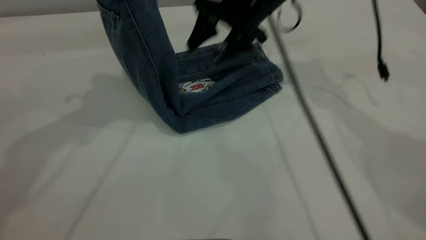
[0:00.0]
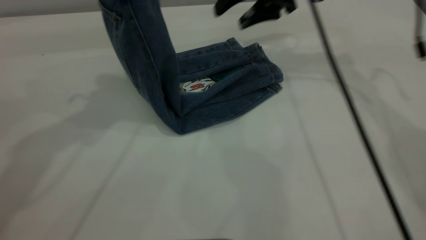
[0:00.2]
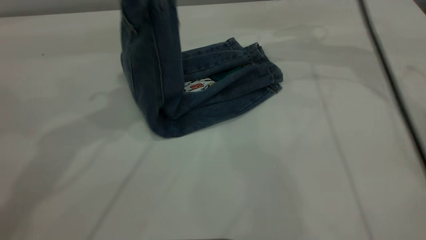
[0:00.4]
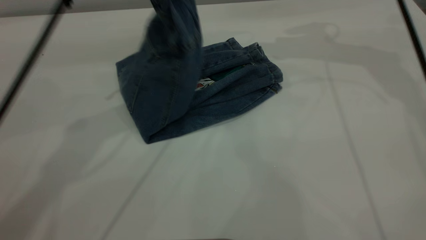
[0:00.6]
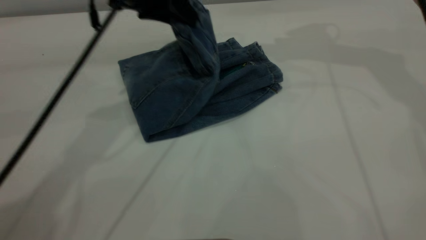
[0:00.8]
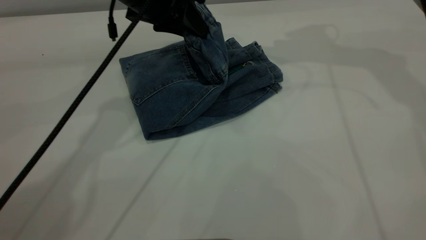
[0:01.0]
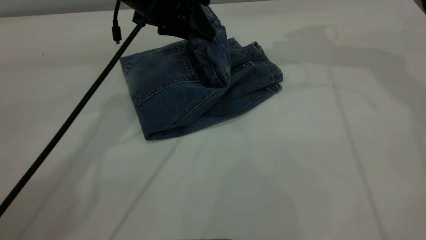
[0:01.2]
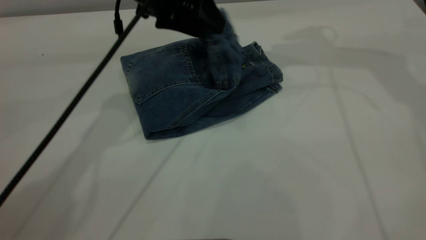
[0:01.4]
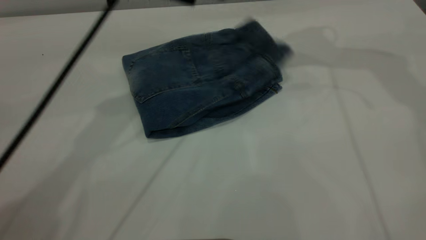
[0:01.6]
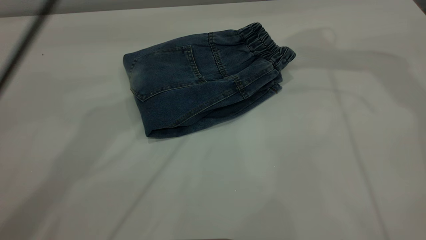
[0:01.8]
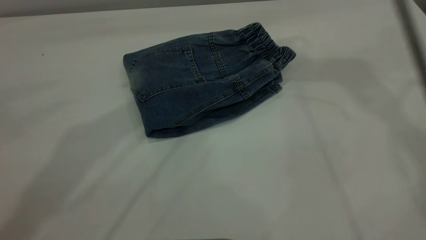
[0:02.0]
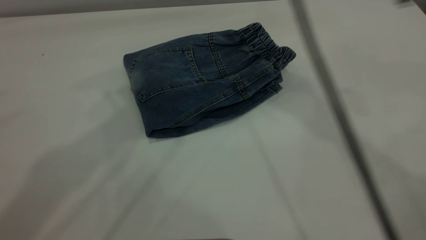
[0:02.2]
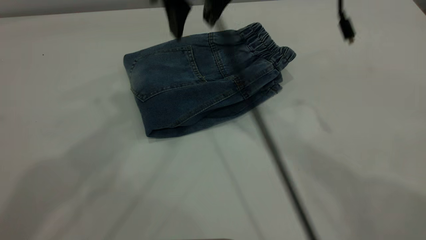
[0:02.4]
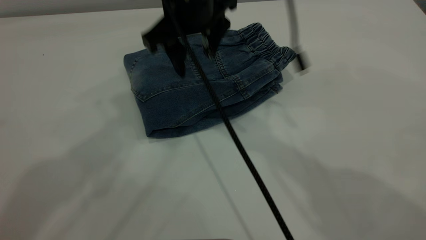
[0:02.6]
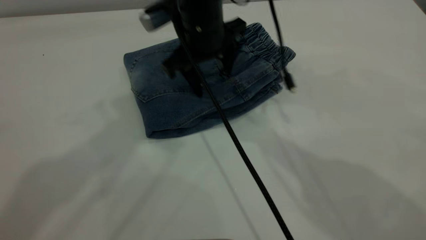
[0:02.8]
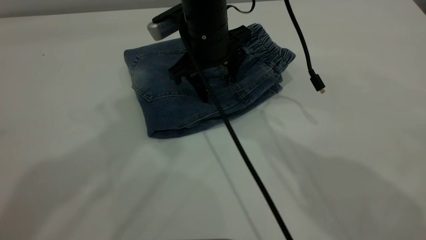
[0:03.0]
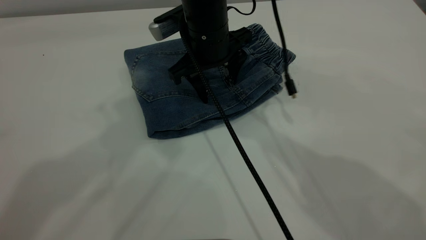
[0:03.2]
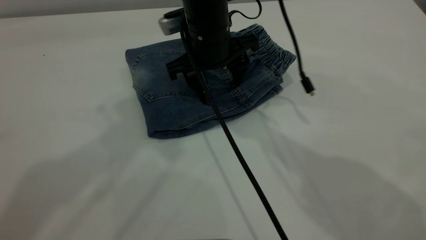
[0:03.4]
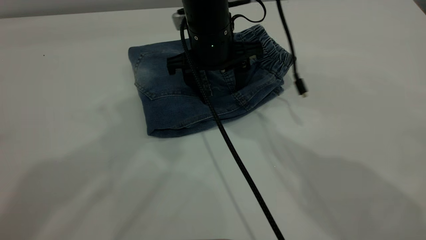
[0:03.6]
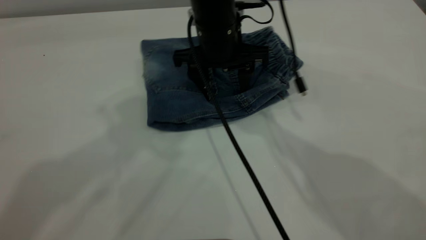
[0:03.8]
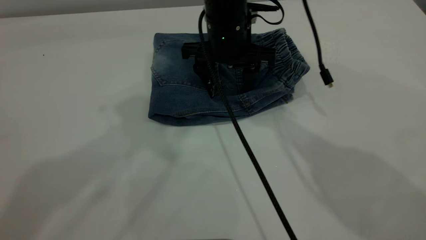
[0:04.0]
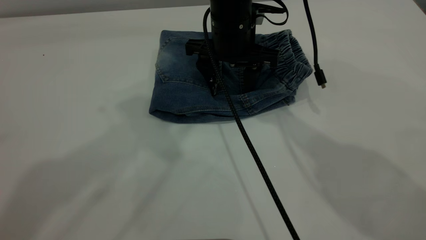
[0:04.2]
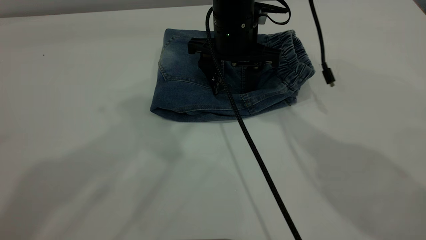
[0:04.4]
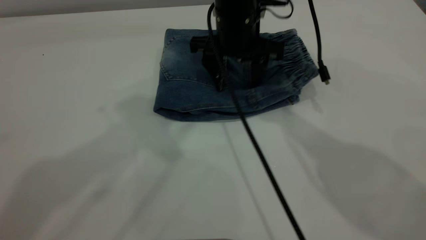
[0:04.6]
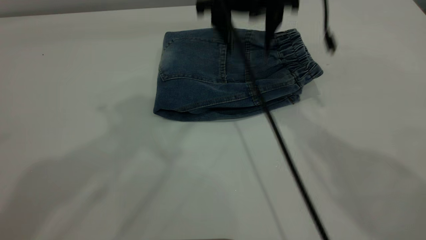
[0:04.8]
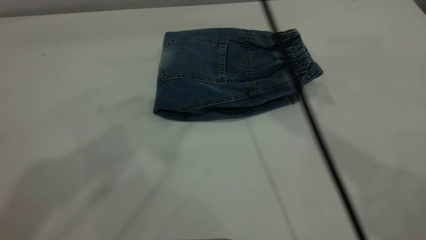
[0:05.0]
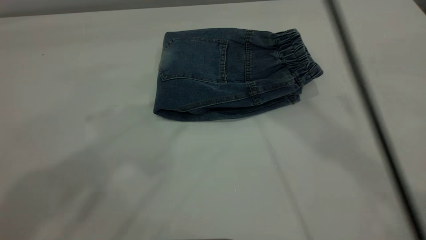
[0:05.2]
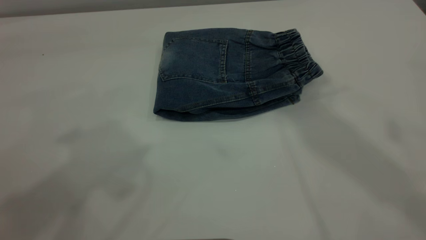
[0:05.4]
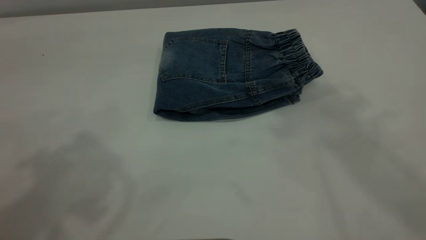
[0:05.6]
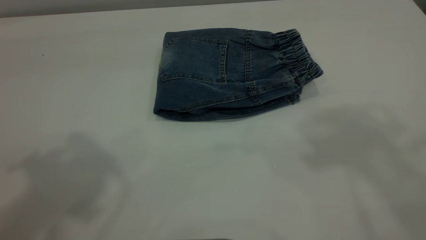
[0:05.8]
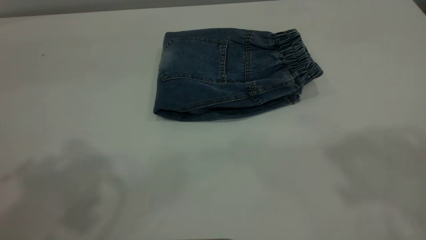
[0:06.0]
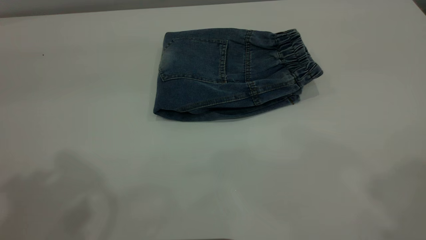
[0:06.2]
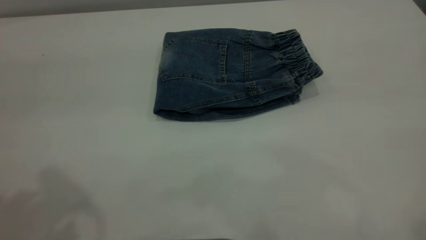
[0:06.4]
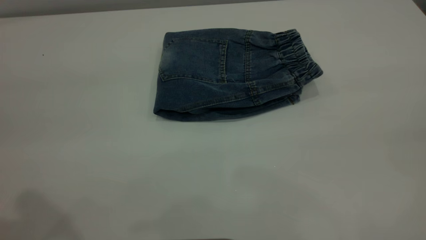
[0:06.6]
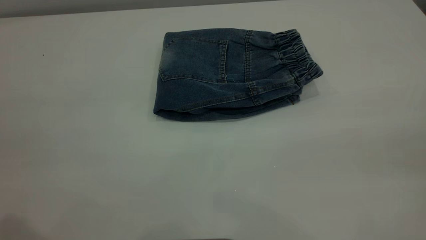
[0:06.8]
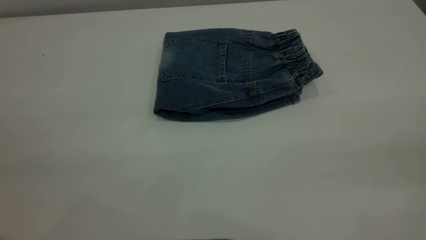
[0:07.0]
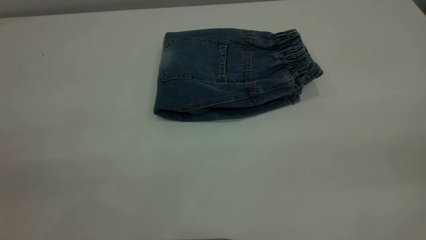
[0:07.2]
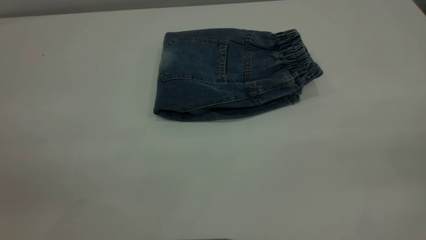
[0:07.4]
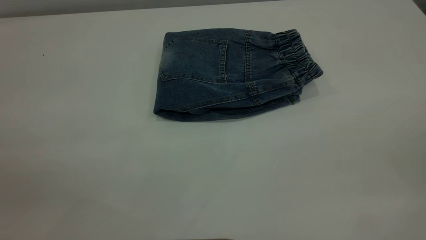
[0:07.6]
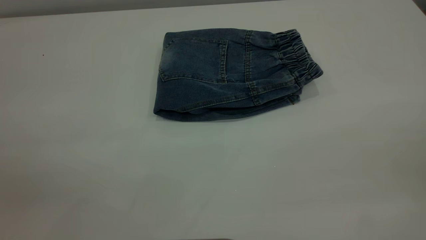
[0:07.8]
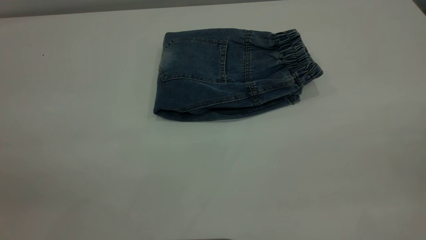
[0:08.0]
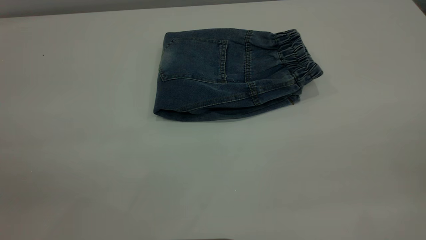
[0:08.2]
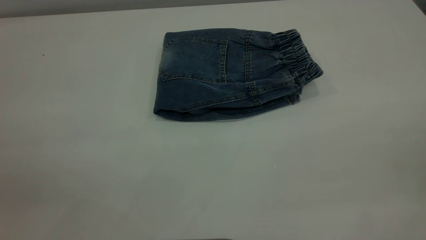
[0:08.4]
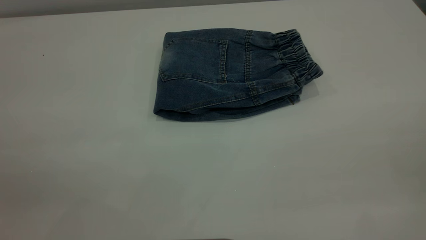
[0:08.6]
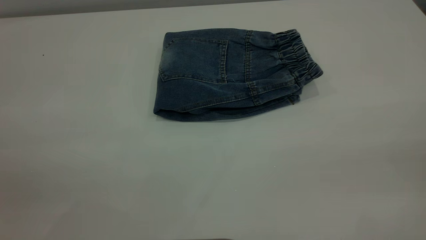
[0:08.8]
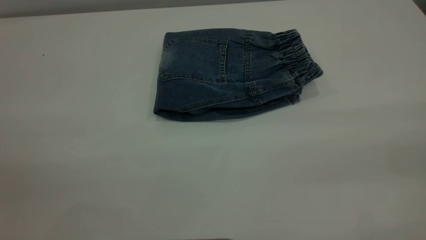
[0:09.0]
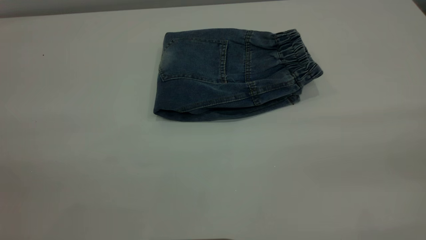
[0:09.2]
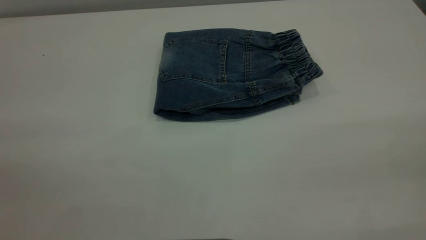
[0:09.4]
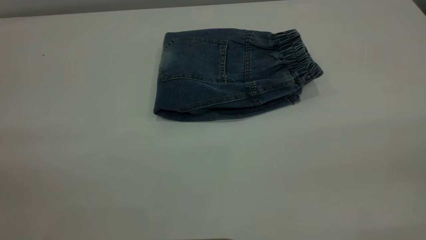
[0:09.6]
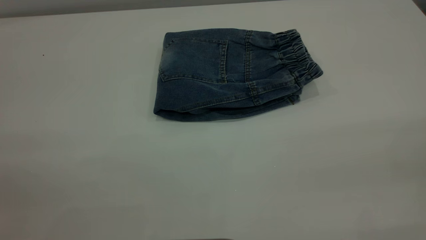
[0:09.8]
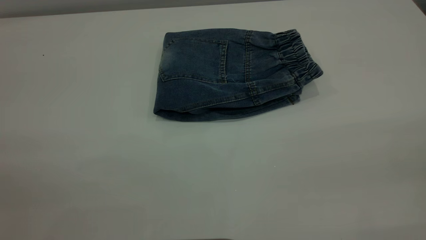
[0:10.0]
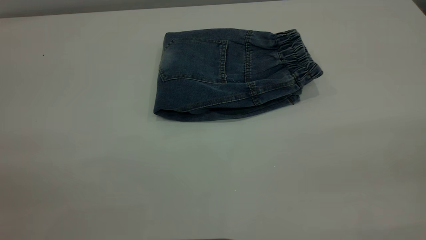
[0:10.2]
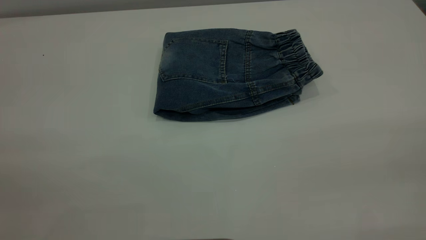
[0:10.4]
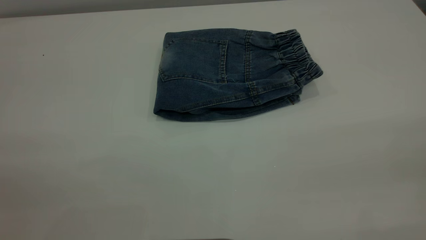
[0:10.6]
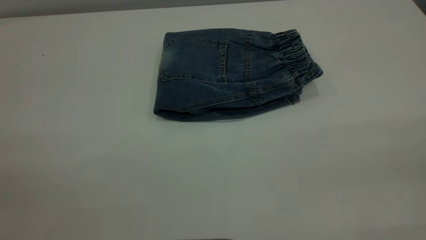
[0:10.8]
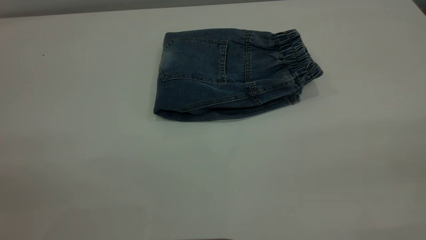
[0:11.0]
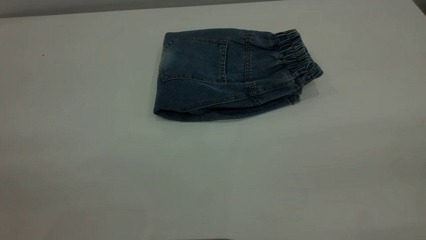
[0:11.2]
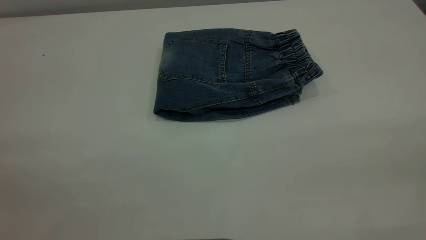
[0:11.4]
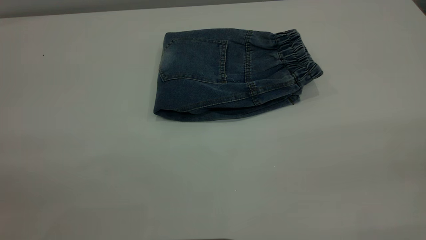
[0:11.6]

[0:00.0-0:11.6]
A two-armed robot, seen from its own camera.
0:00.0 to 0:01.4: The left gripper heads downward, to the right and forward, covering approximately 20 cm, and opens its fingers. Meanwhile the right gripper heads upward and to the right, covering approximately 15 cm.
0:01.4 to 0:02.8: The left gripper heads upward and backward, covering about 30 cm. The right gripper moves to the left and downward, about 25 cm.
0:04.4 to 0:05.8: The left gripper is displaced backward and to the left by some 10 cm. Meanwhile the right gripper travels upward and backward by roughly 40 cm.
0:10.2 to 0:11.6: The two grippers keep their place.
